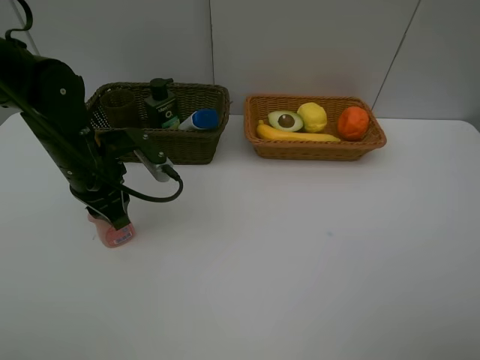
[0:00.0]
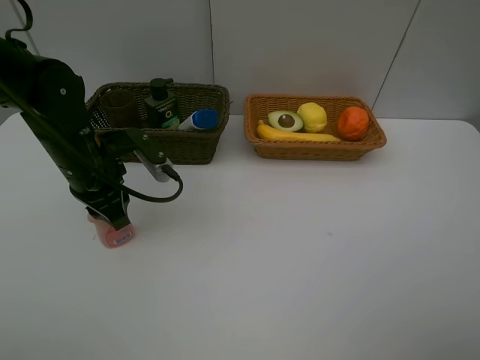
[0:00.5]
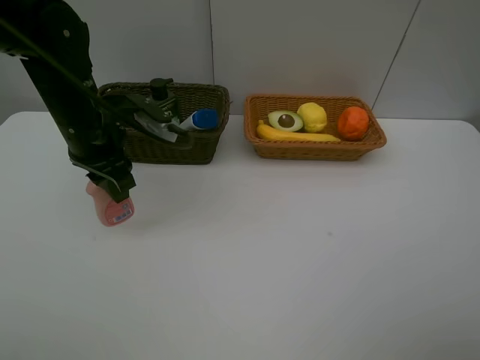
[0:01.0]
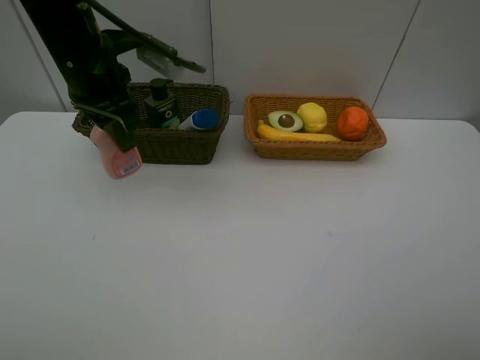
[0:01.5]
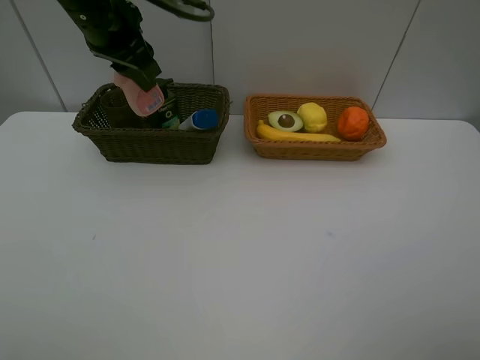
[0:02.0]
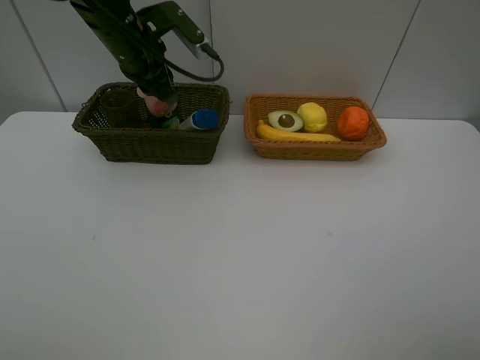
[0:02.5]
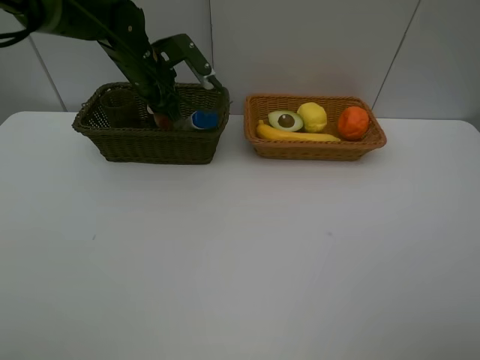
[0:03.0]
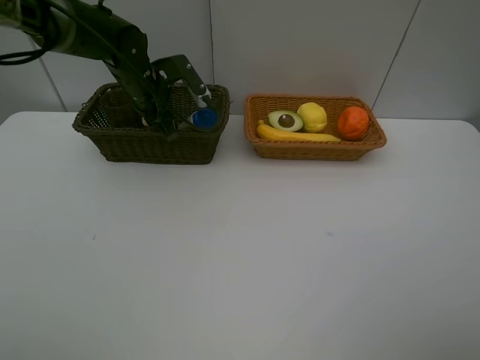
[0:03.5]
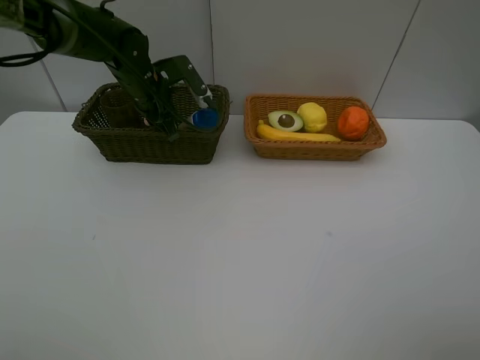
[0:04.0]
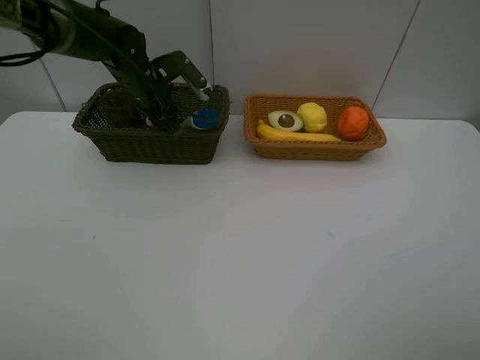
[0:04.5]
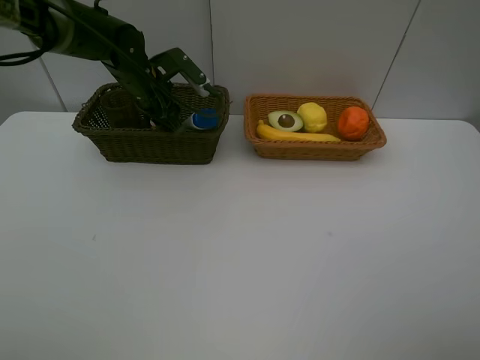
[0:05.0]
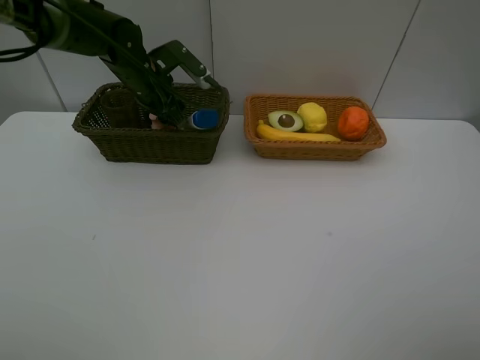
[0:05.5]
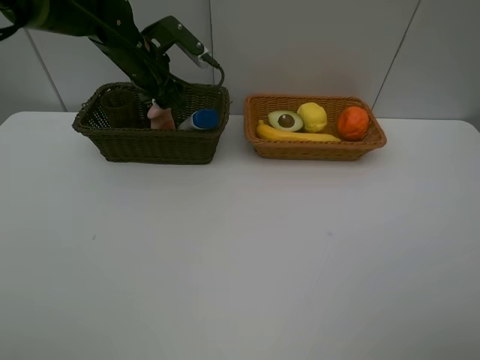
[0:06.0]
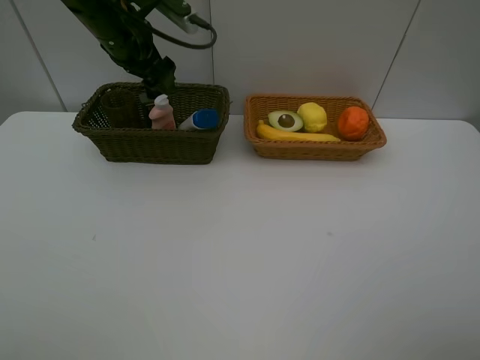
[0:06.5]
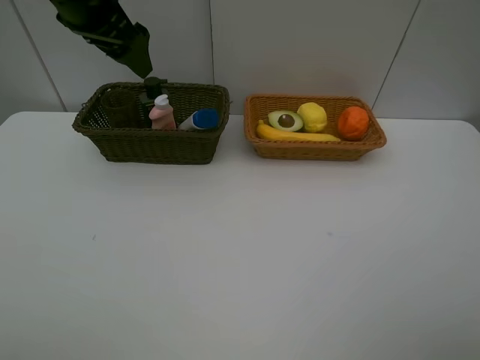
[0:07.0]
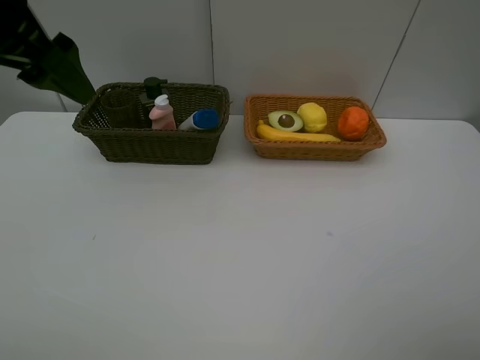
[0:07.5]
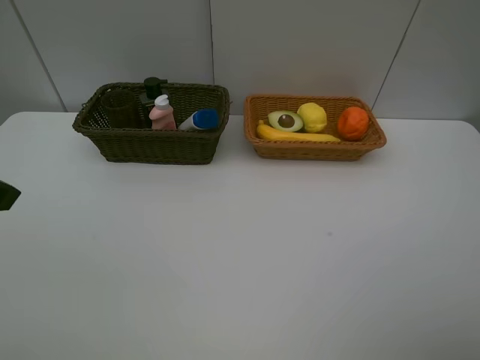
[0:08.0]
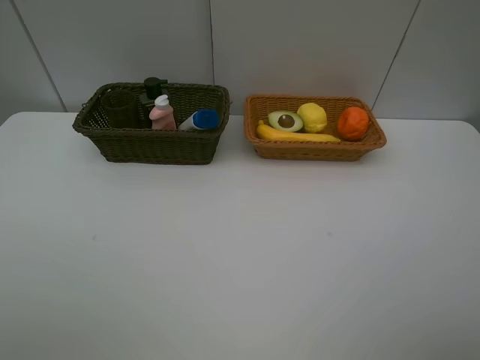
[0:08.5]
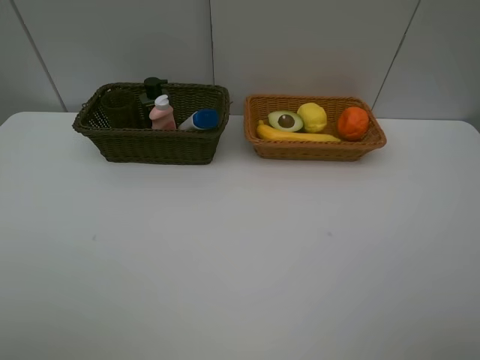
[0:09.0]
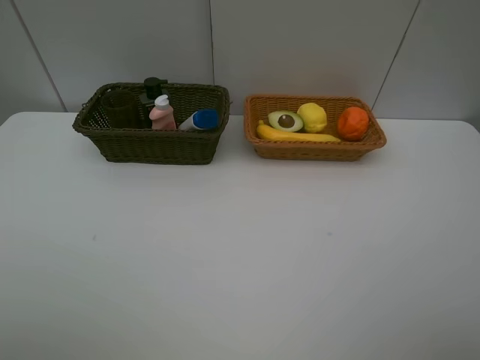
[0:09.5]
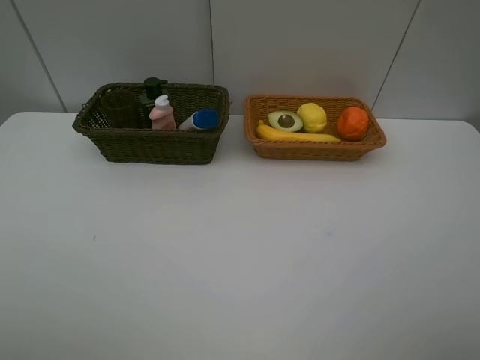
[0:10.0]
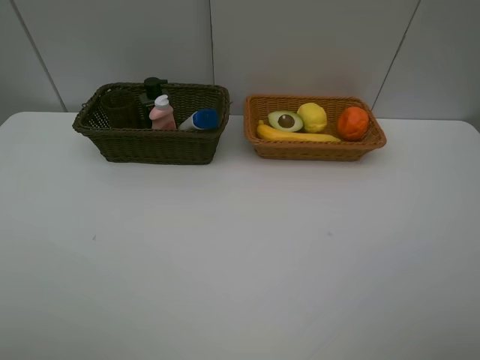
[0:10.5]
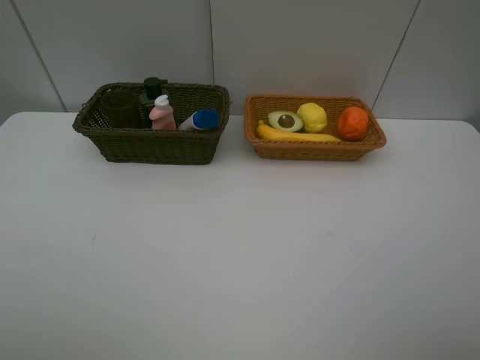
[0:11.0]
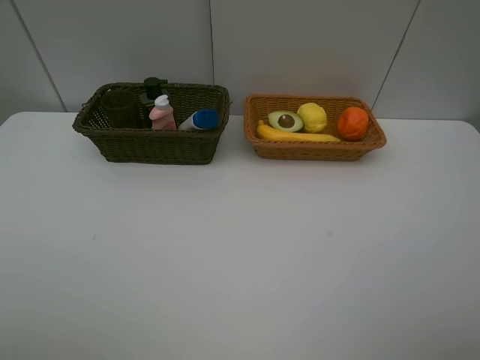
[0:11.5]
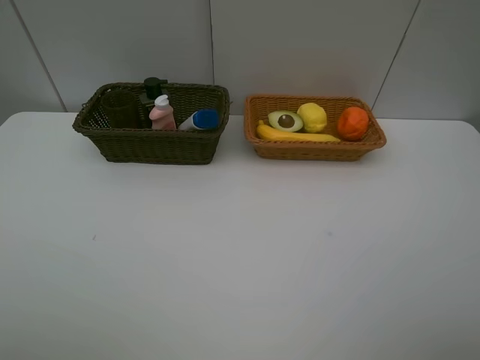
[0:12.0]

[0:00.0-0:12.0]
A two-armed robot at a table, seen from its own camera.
Task of the whole recording: Place multiple objects separately in different baskets.
Step, 0:01.0 to 0:05.5: Place the laundry detergent in the dark basket with left gripper.
0:00.0 to 0:02.0: The left gripper is displaced upward and forward by approximately 15 cm.
0:02.0 to 0:04.0: The left gripper moves downward and forward, some 15 cm.
0:04.0 to 0:06.0: The left gripper opens its fingers.
0:06.0 to 0:08.0: The left gripper shifts some 30 cm backward.
0:10.0 to 0:12.0: Both grippers stay about where they are.

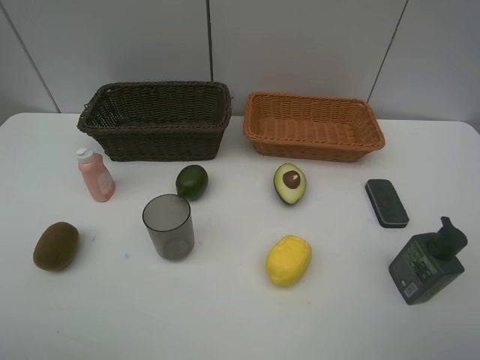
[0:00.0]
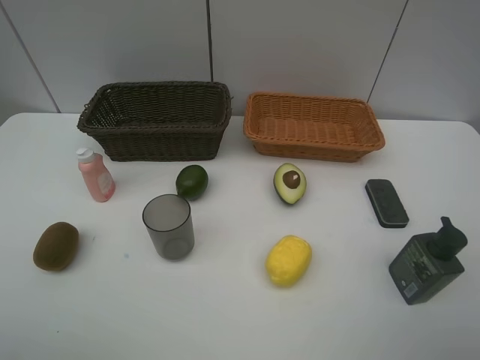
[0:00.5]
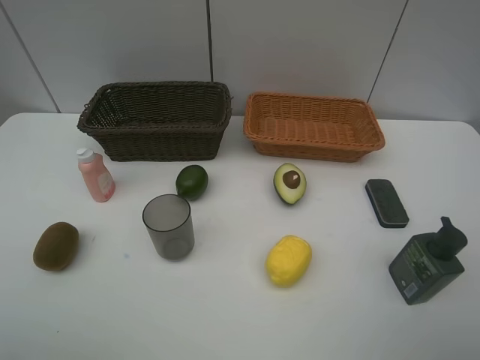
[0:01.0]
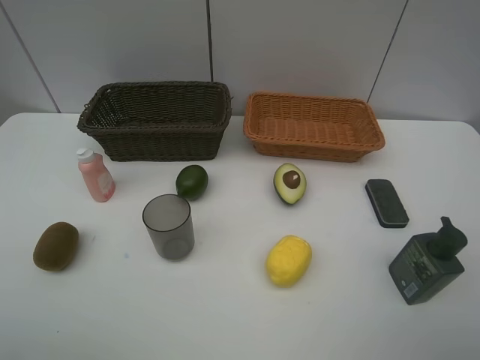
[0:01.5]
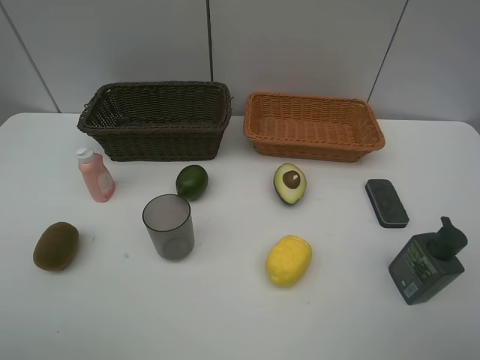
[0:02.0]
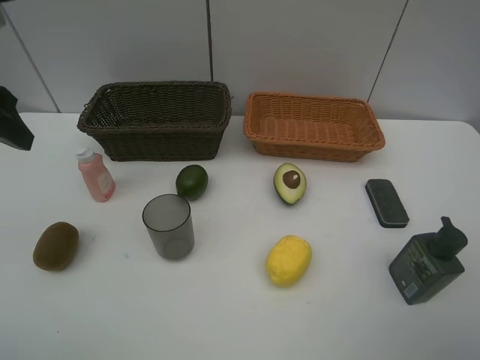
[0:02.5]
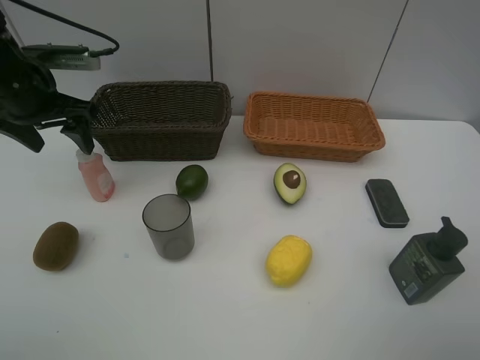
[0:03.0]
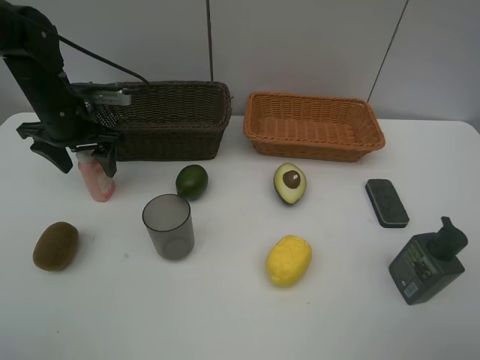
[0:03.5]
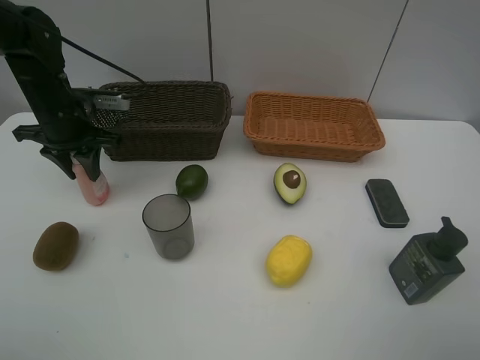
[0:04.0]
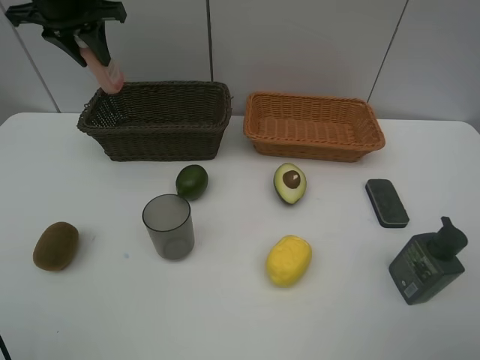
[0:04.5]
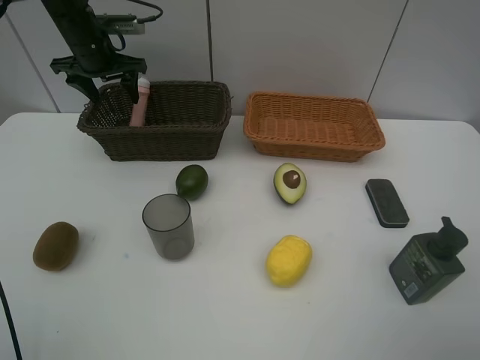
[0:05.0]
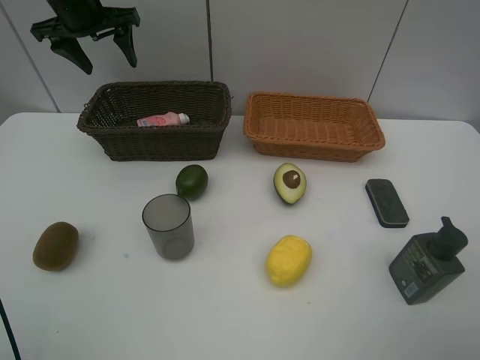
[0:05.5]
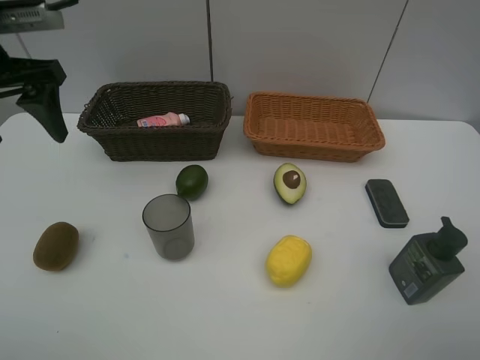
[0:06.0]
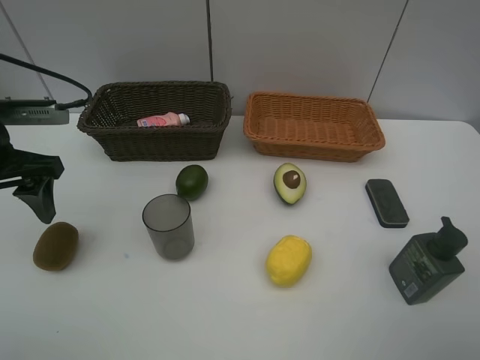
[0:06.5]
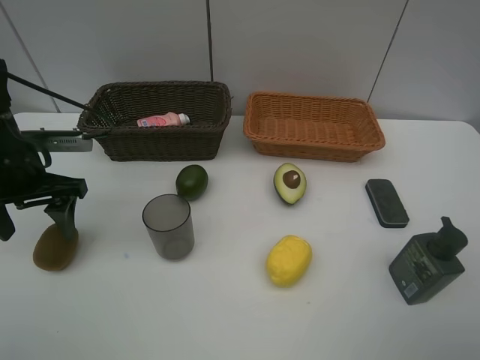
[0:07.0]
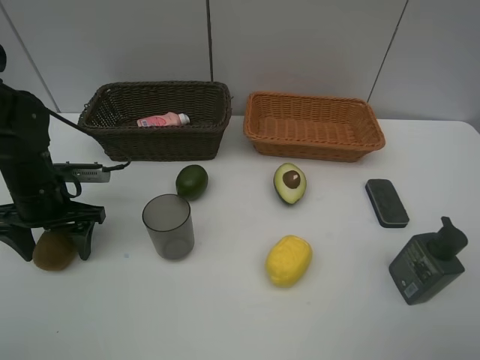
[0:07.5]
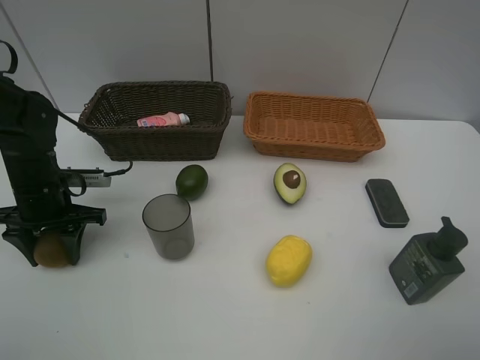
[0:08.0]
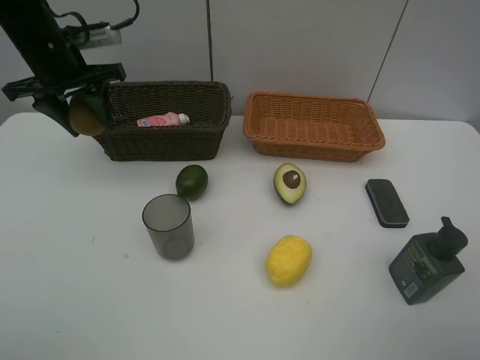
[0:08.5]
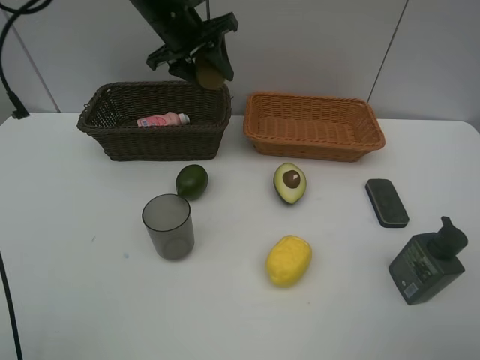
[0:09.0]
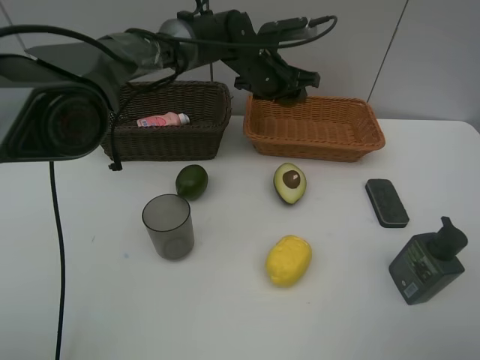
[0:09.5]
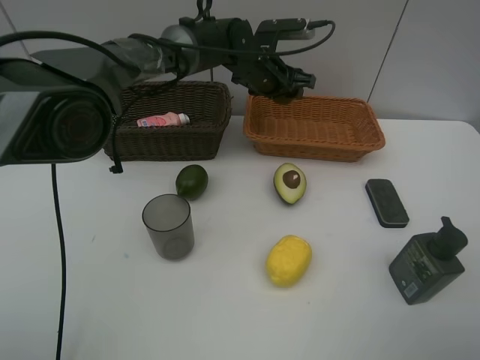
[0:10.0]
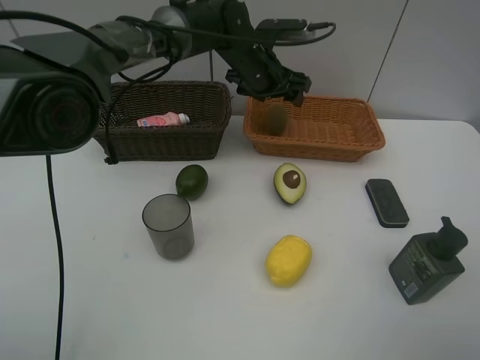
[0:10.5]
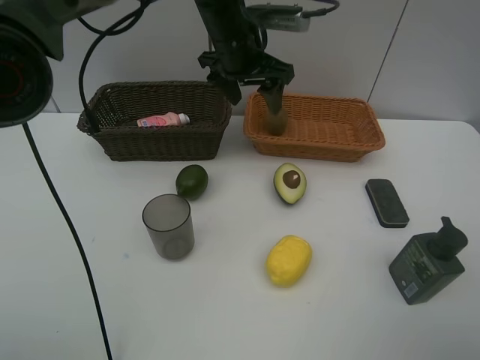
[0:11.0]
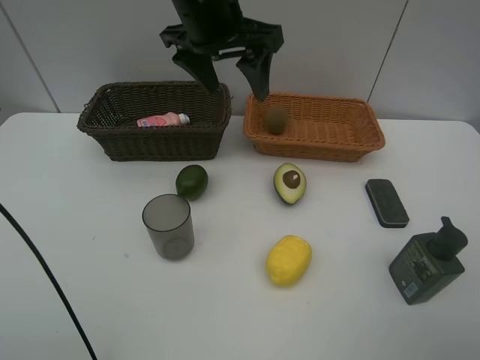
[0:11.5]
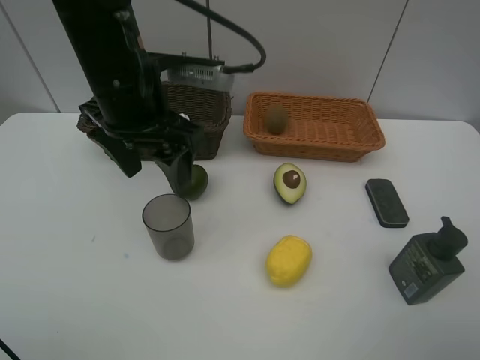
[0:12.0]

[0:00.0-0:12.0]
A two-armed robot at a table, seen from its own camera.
Task of the whole recording: Place multiple objects separately in different baskets.
Step, 0:00.0 to 0:04.0: Pick up the laundry detergent with left gripper.
Step, 0:04.5 to 0:05.0: Place the laundry detergent in the dark basket with left gripper.
Step, 0:05.5 to 0:08.0: Pick up kiwi with left gripper.
Step, 0:08.5 to 0:10.0: Place the kiwi in the light basket with left gripper.
0:02.0 to 0:04.0: The left gripper heads forward and downward, covering approximately 35 cm, and closes up.
0:04.0 to 0:06.0: The left gripper goes approximately 15 cm upward and backward, and opens.
0:06.0 to 0:08.0: The left gripper goes roughly 20 cm downward, and closes.
0:08.0 to 0:10.0: The left gripper goes approximately 35 cm to the right and forward.
0:10.0 to 0:12.0: The left gripper shifts about 25 cm backward and to the left.

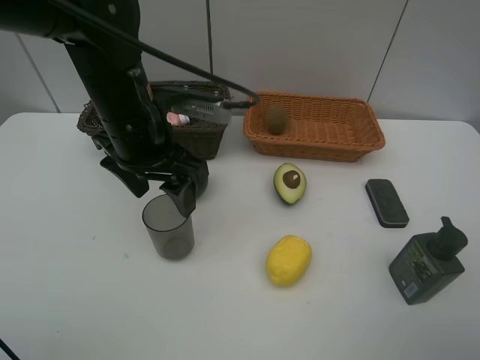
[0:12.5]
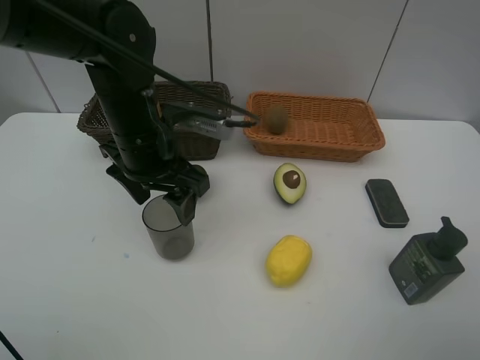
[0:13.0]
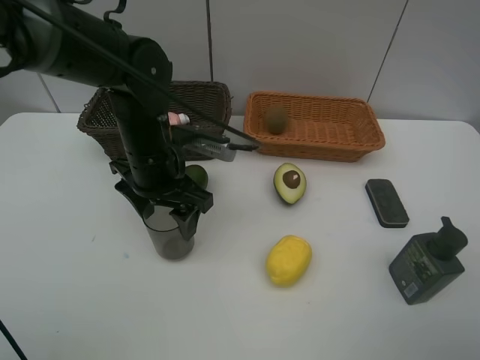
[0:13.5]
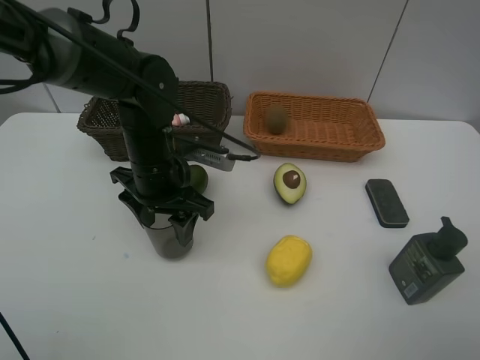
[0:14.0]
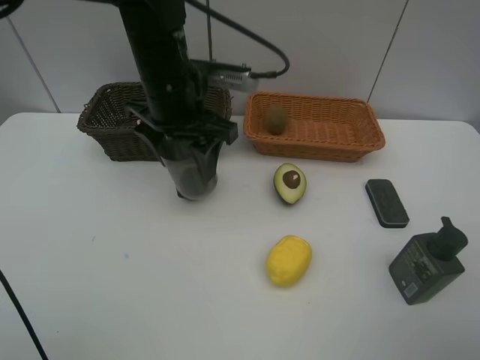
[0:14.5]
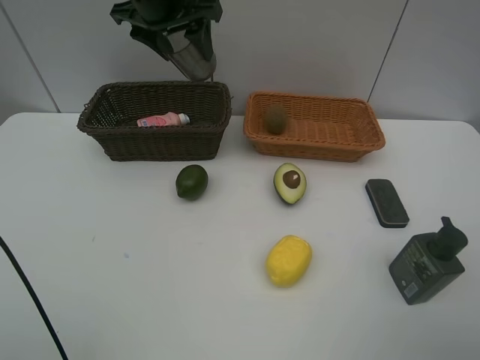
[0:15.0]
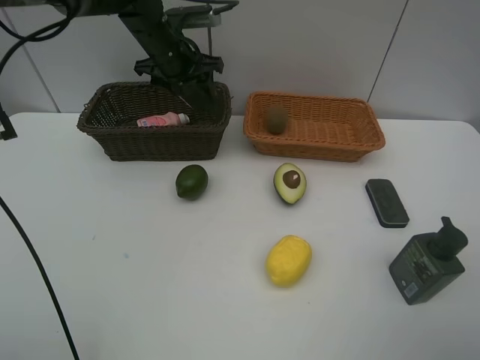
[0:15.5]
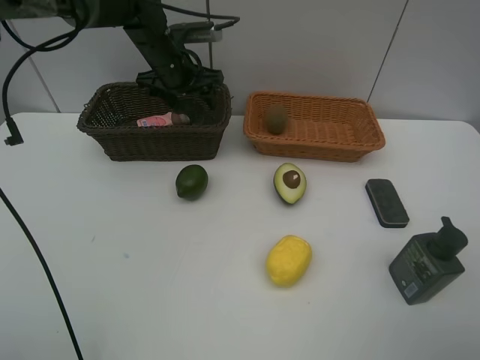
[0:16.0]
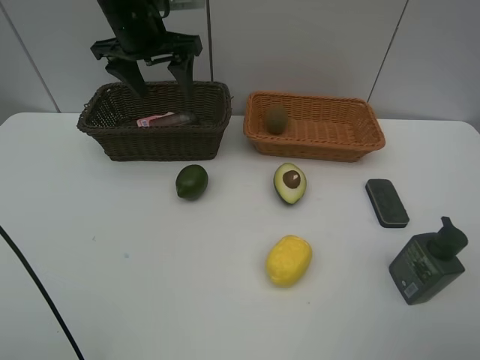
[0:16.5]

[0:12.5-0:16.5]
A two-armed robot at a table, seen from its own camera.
Task of the whole recording: Place multiple objects separately in different baskets.
Step, 0:14.5 to 0:16.0: Place the gray cup in the dark basket with left gripper.
0:12.5 to 0:14.5: The left gripper is displaced forward by roughly 5 cm, and reaches roughly 5 cm downward, then returns.
0:14.5 to 0:16.5: The left gripper heads forward and to the left, covering about 10 cm.
